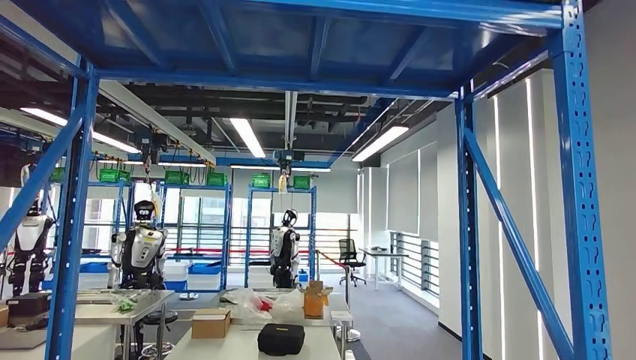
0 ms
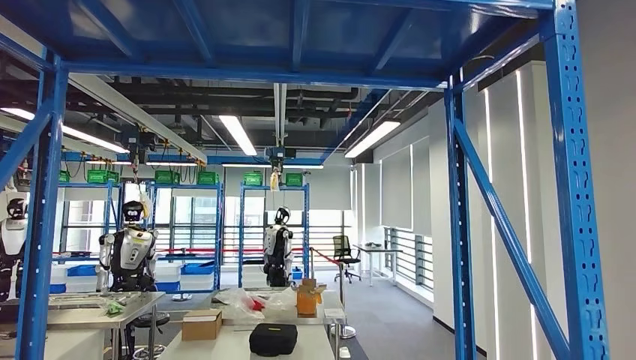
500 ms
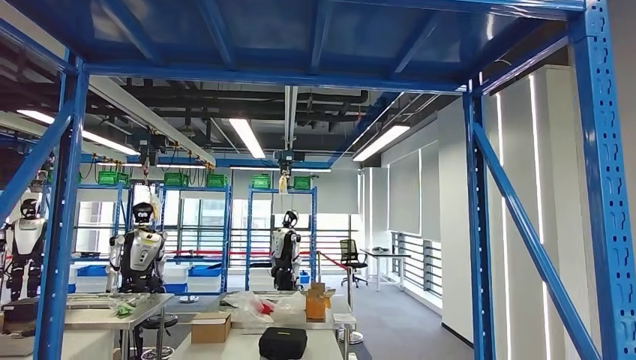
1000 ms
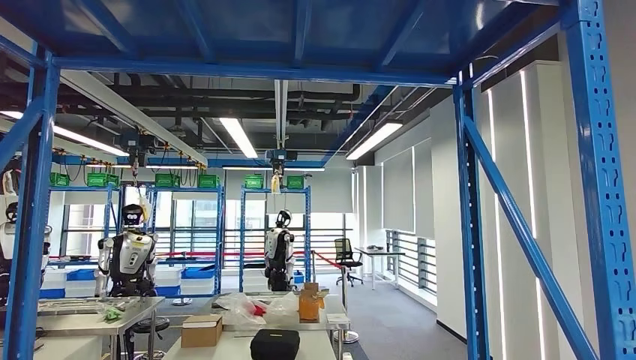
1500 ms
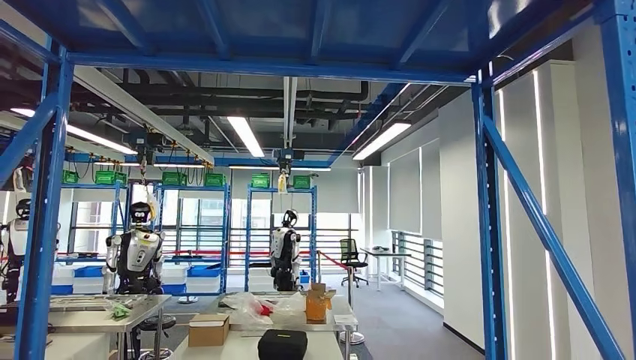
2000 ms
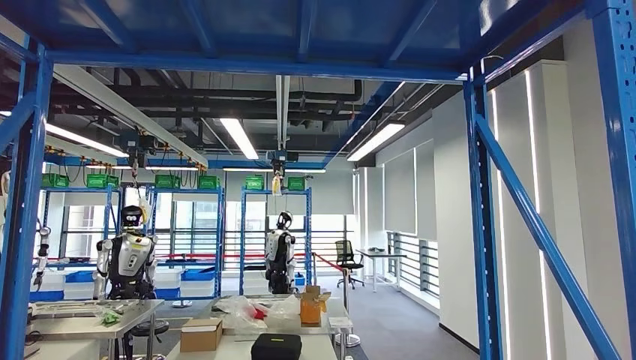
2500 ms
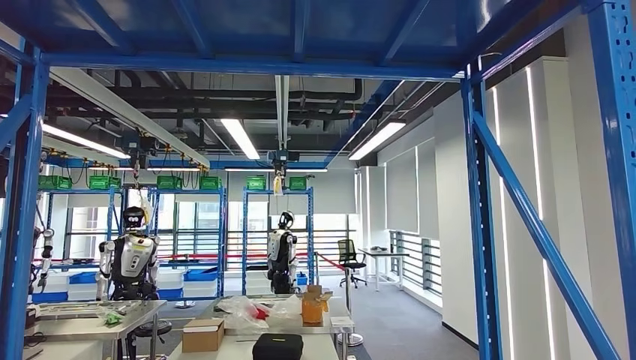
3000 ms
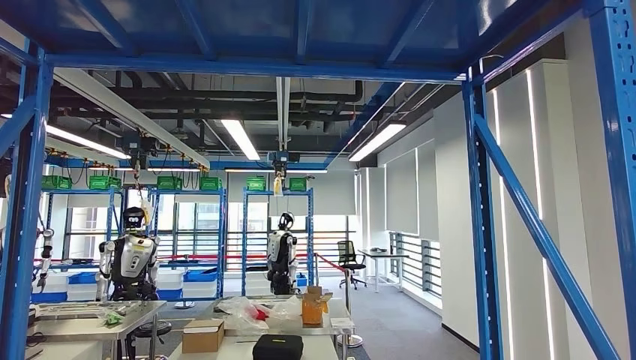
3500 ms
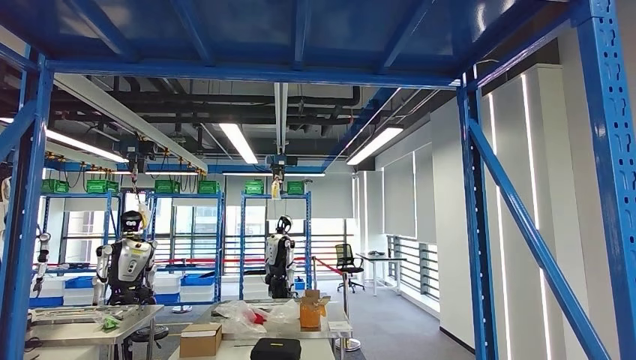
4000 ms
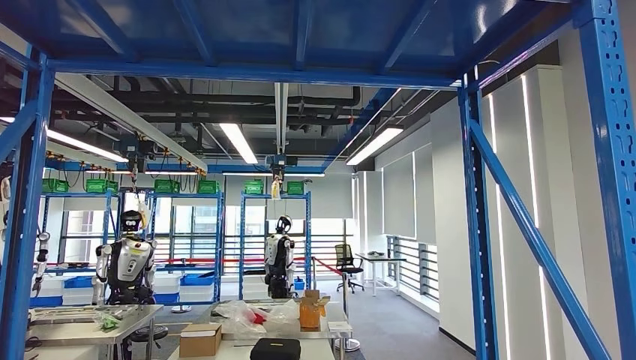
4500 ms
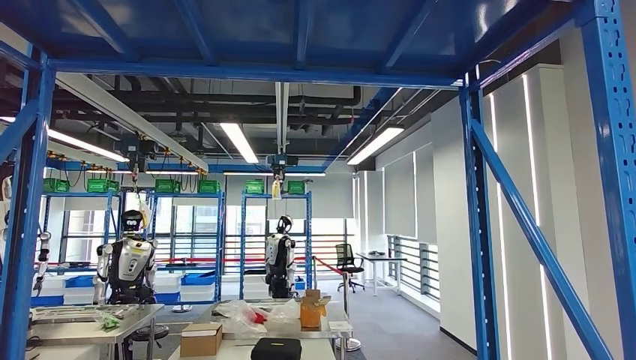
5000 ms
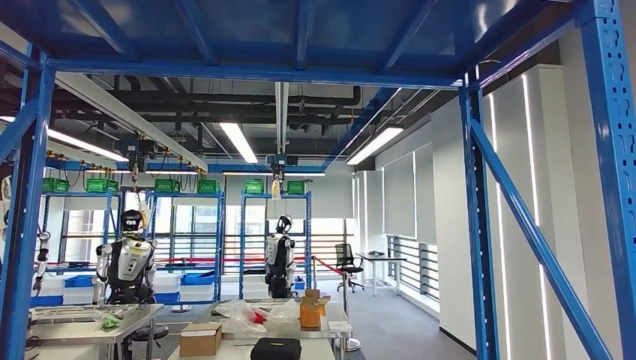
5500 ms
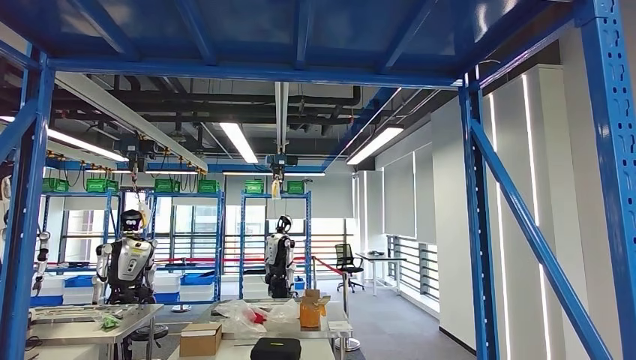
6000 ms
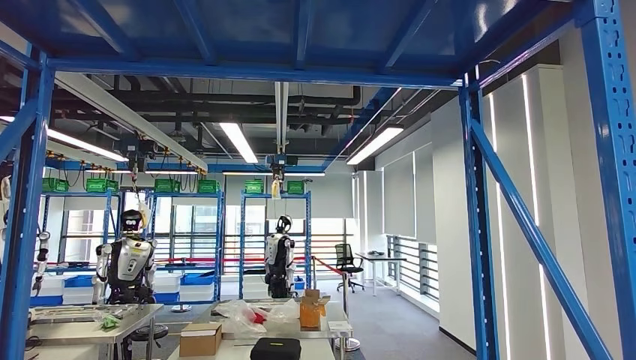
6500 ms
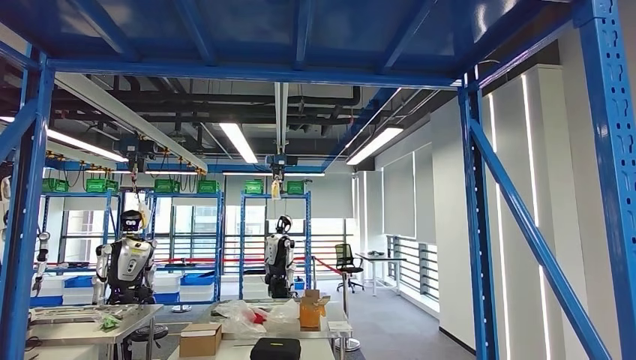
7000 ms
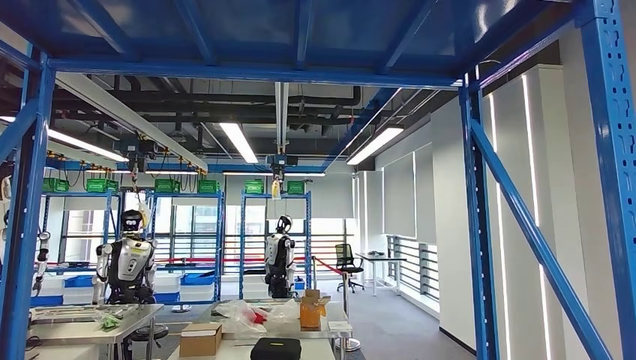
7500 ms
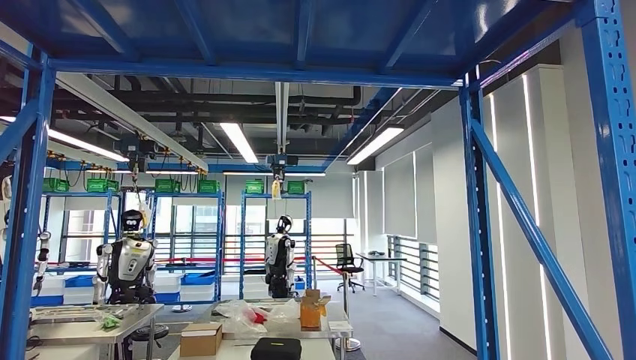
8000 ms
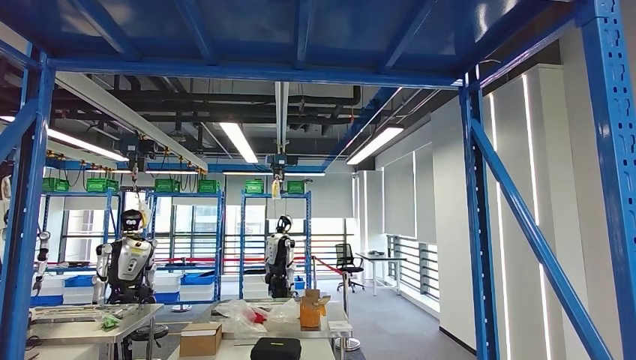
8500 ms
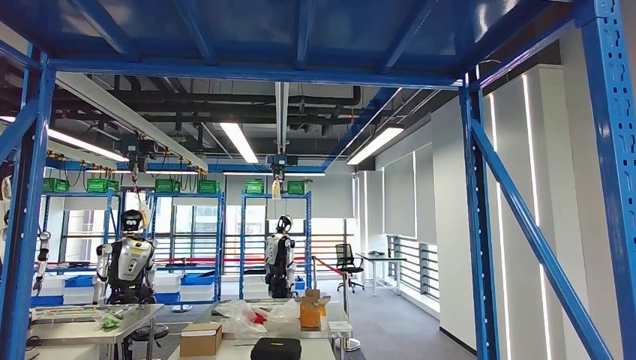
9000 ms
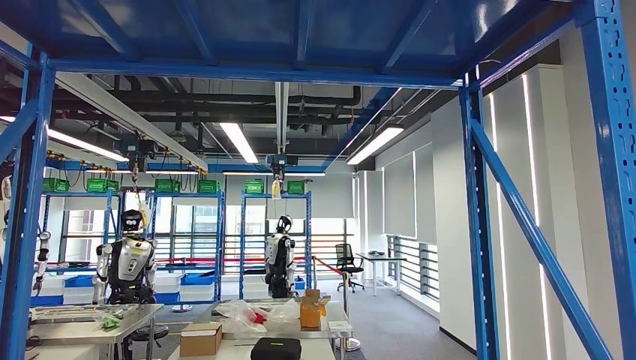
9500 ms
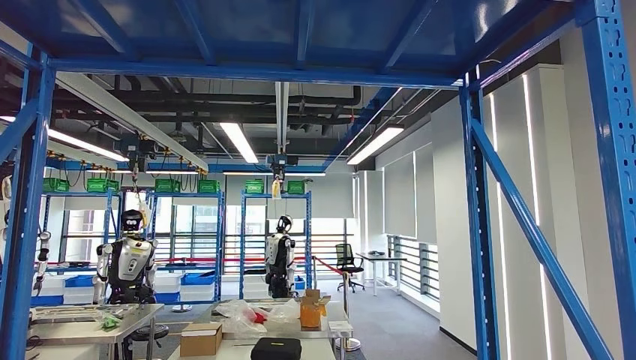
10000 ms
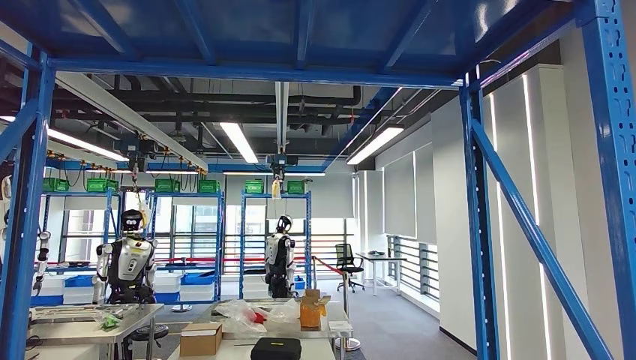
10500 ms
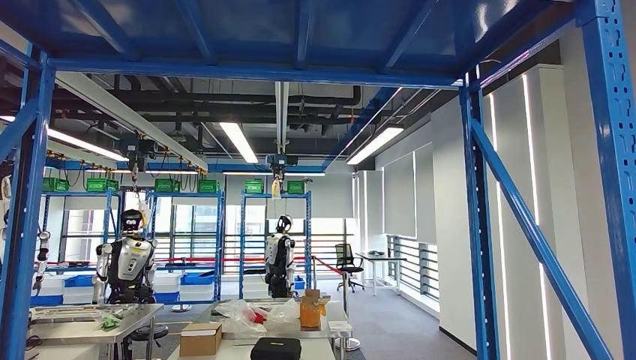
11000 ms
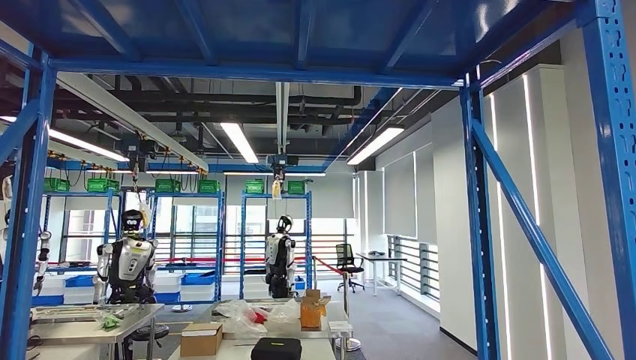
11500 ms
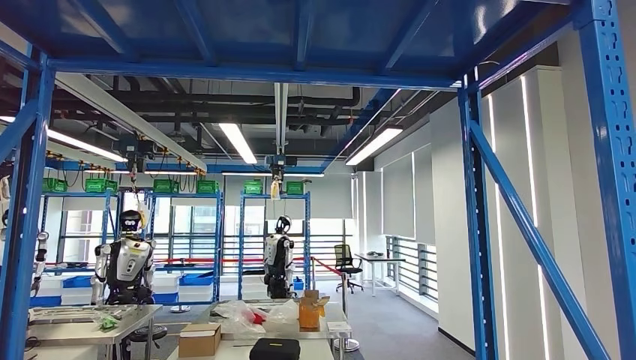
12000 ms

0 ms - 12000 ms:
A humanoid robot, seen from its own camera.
4000 ms - 6000 ms: The right hand heads to the right, covering about 10 cm.
10000 ms - 12000 ms: There are only small adjustments of the hands.

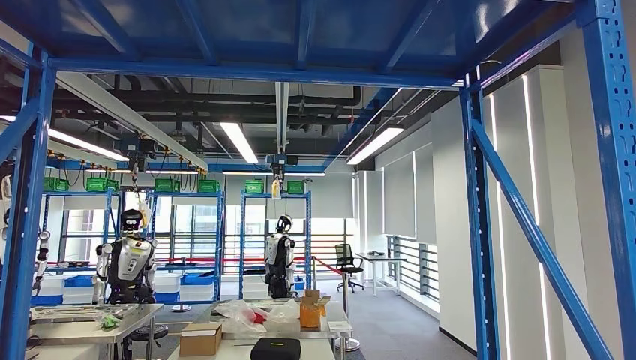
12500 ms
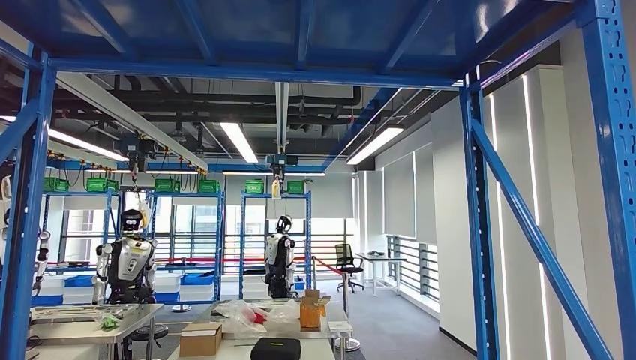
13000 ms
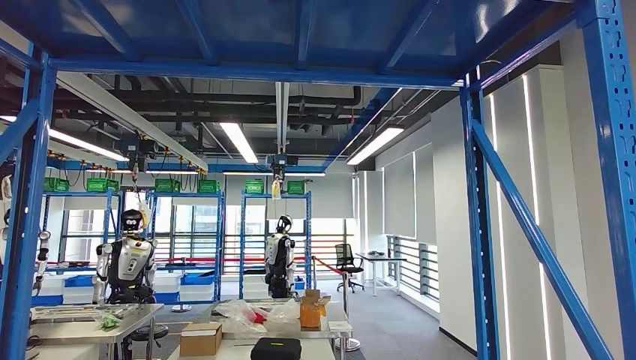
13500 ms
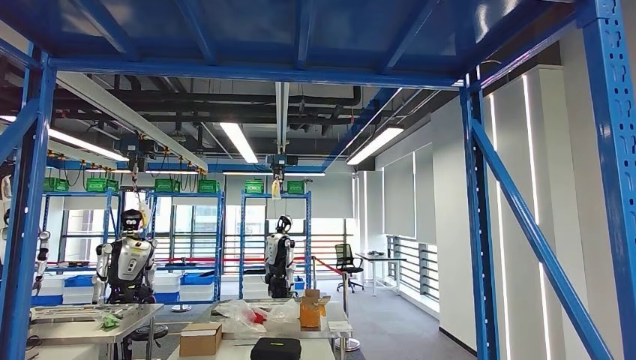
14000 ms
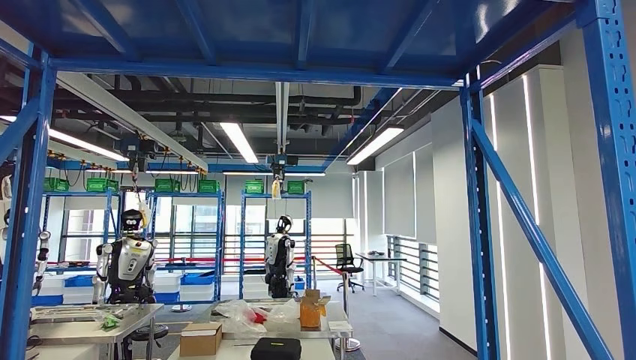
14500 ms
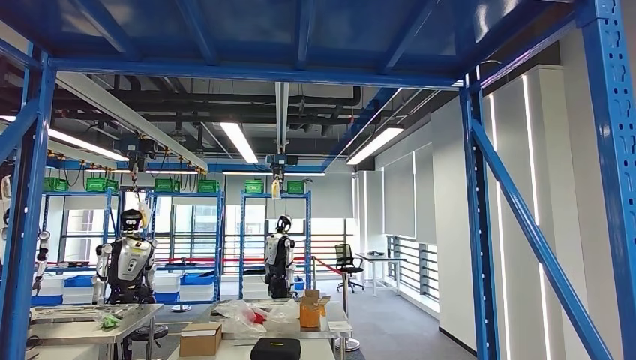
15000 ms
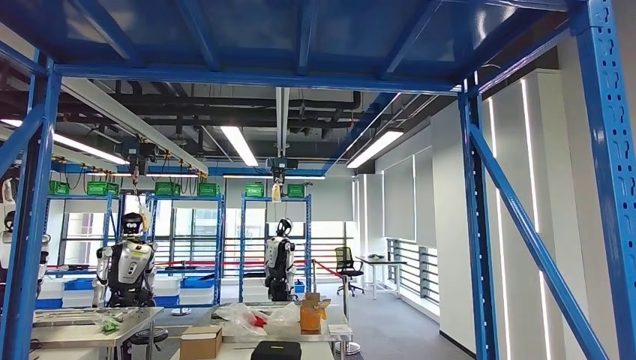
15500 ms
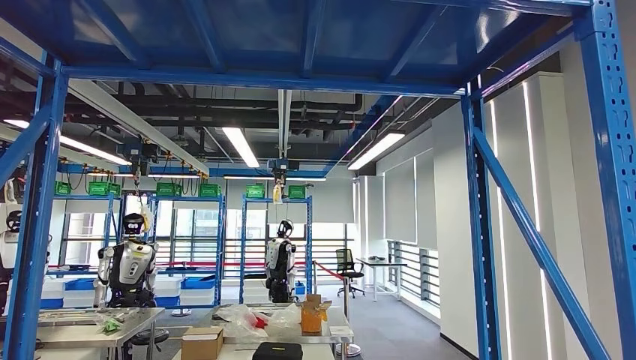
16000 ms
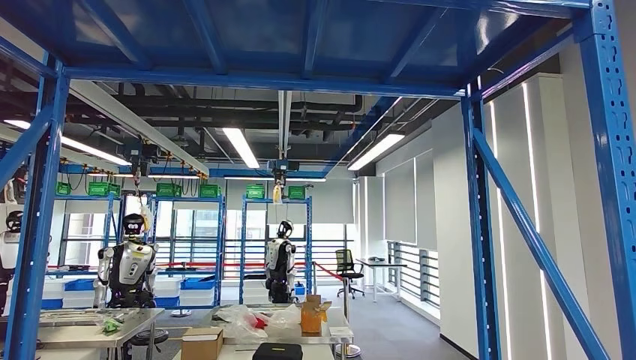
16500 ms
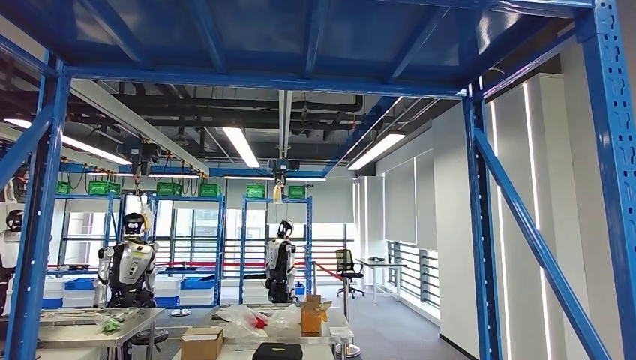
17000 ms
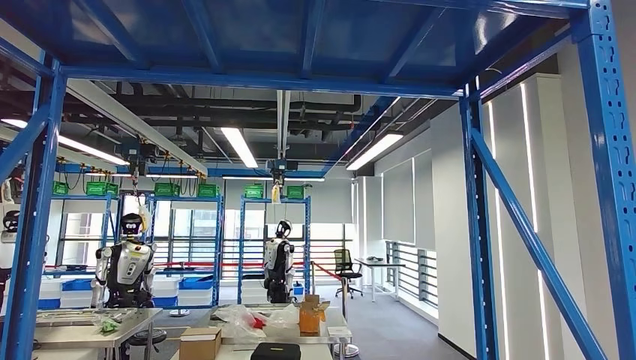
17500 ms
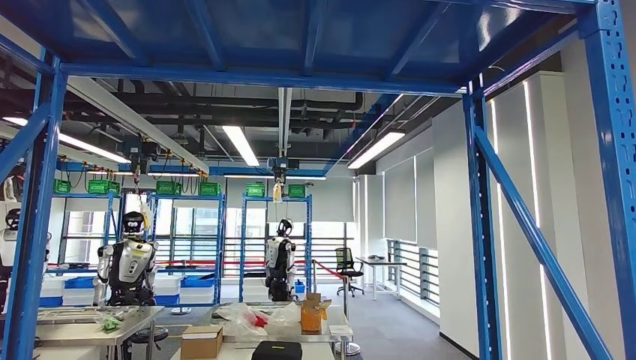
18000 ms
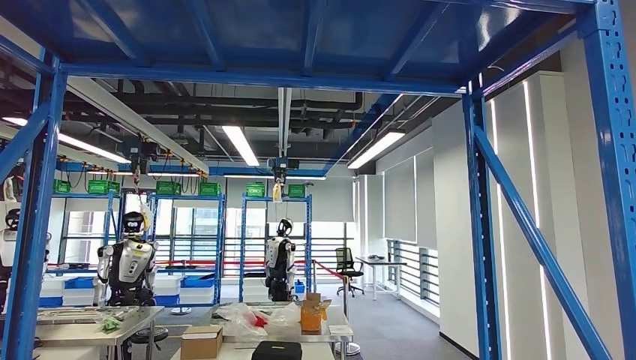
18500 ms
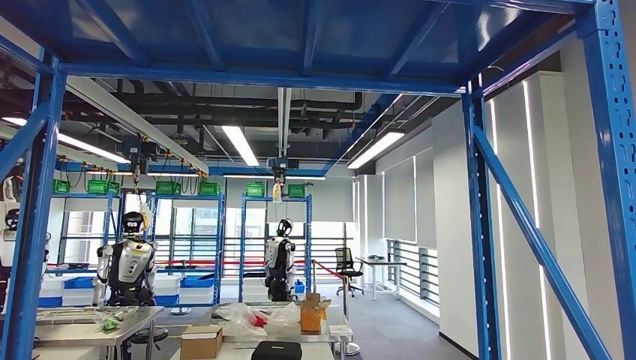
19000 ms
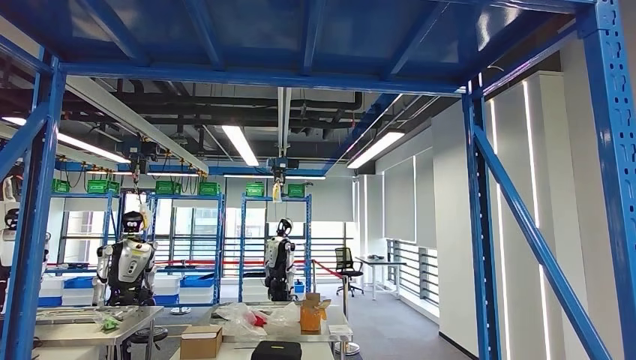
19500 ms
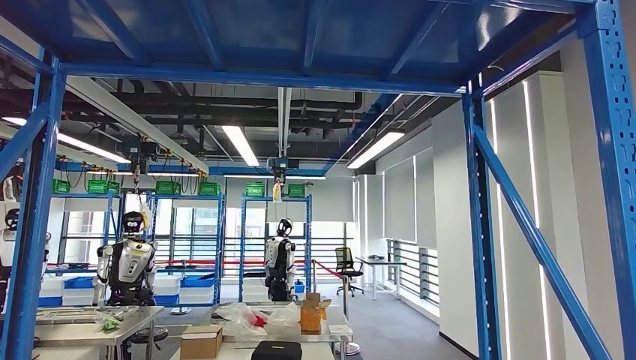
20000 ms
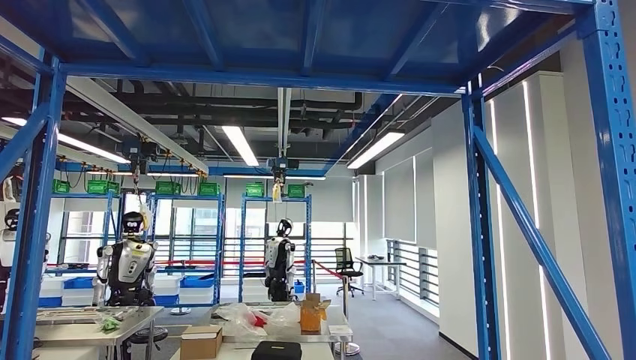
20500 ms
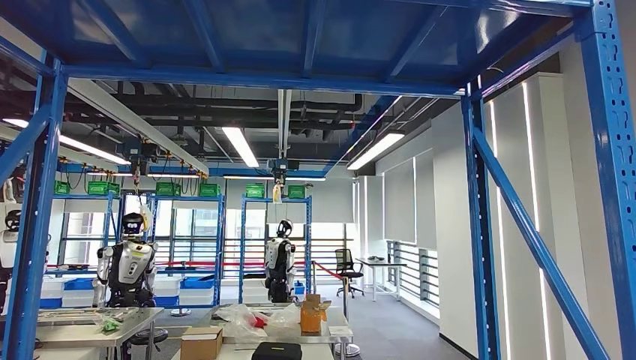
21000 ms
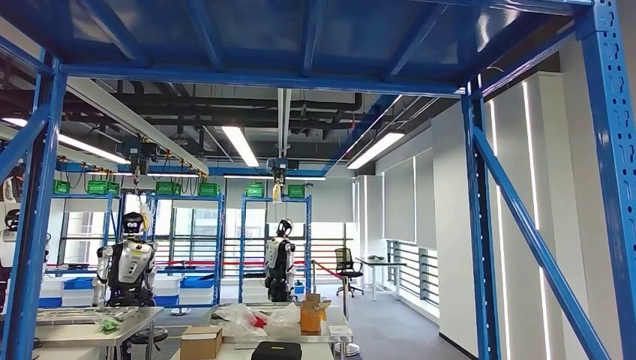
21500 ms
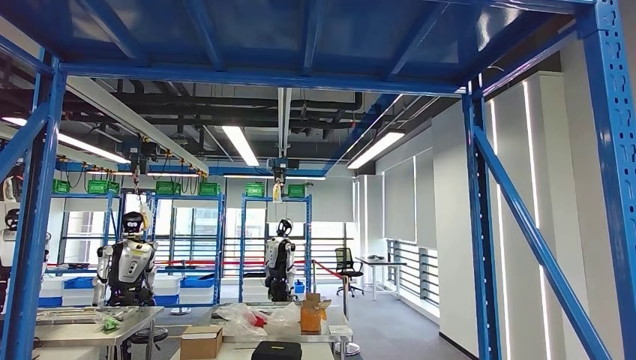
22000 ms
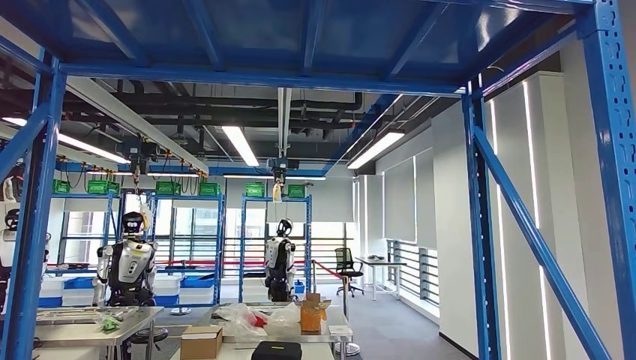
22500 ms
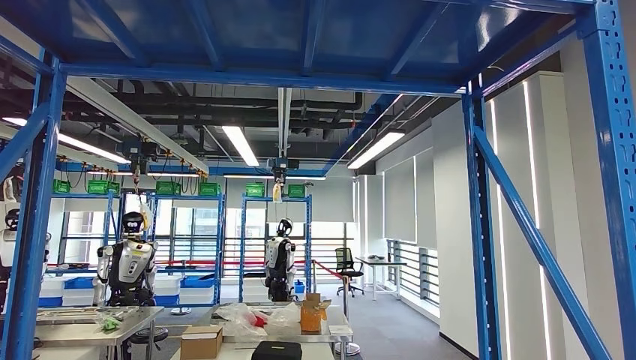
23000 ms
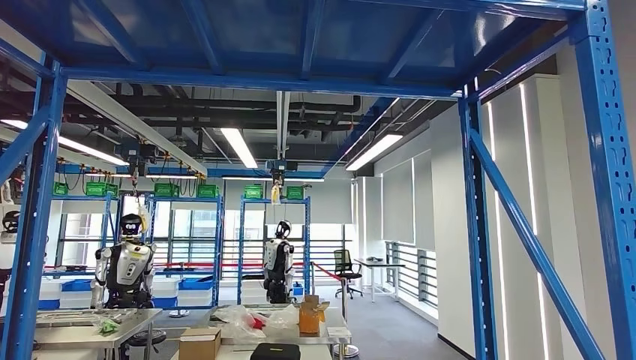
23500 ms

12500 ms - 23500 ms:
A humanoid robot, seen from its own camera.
16000 ms - 18000 ms: There are only small adjustments of the hands.
20000 ms - 21500 ms: The hands make only small movements.
